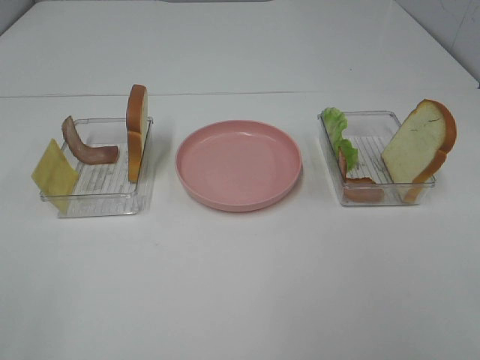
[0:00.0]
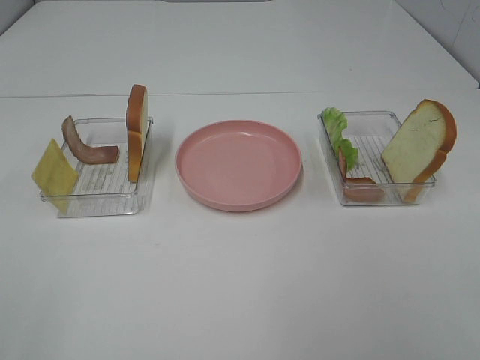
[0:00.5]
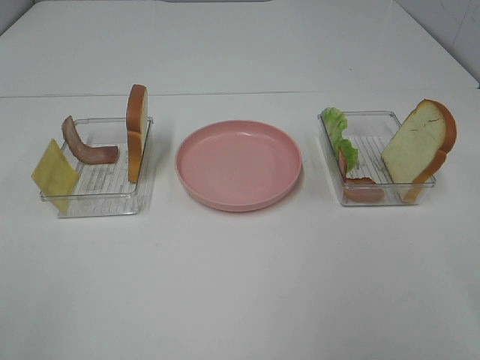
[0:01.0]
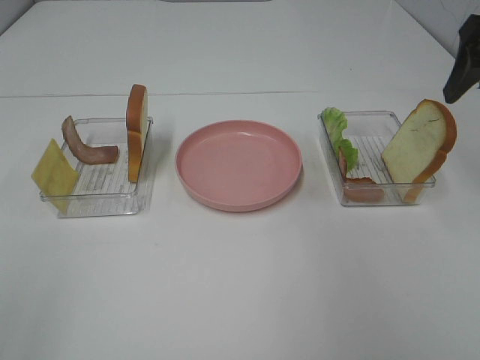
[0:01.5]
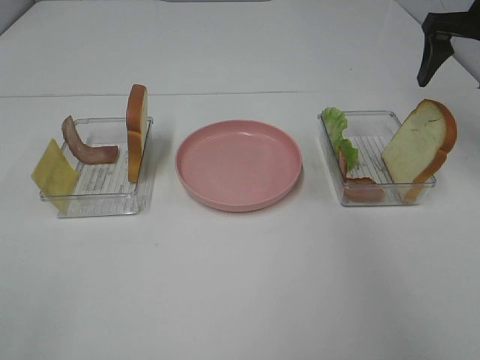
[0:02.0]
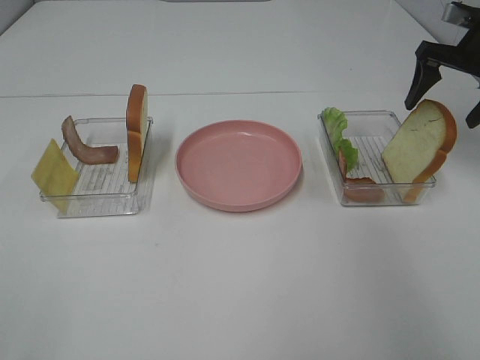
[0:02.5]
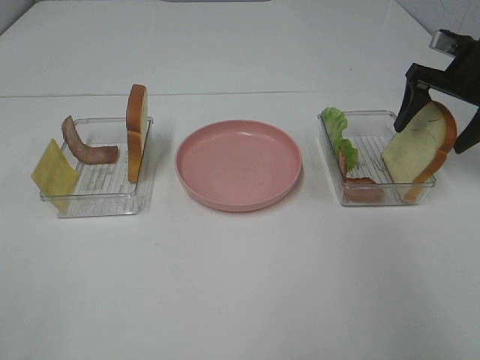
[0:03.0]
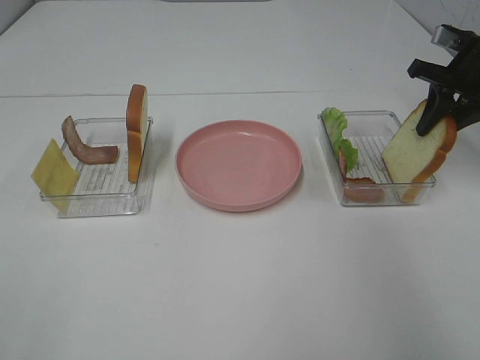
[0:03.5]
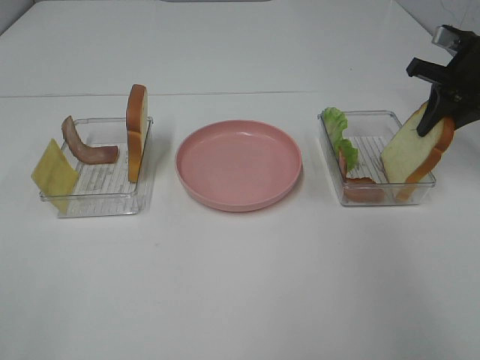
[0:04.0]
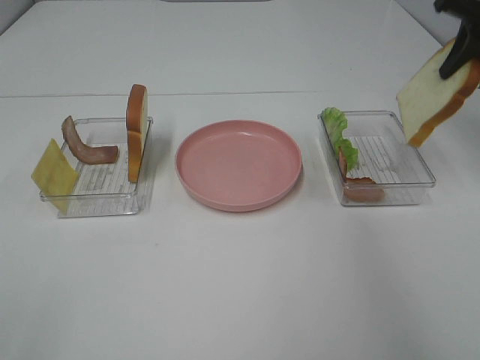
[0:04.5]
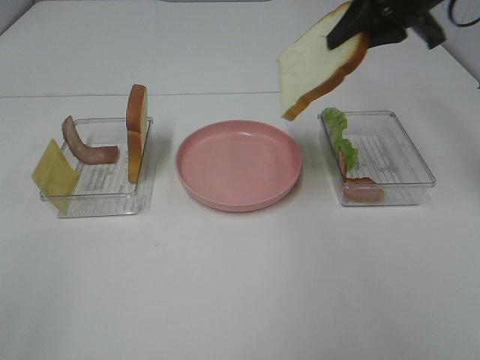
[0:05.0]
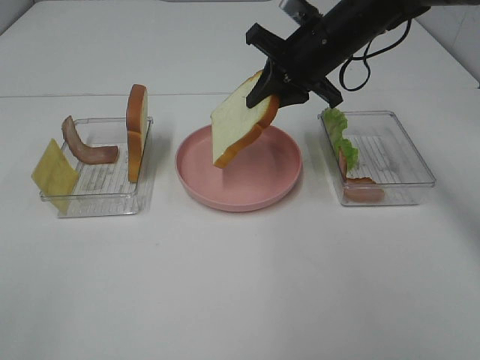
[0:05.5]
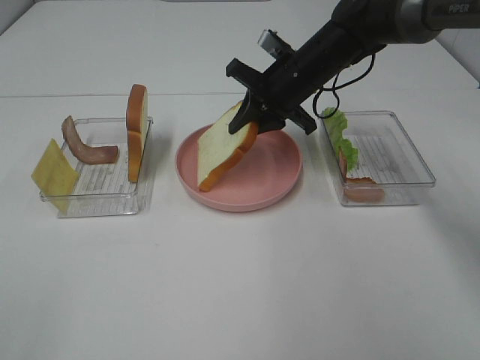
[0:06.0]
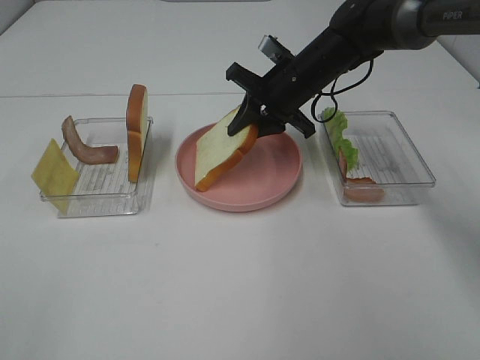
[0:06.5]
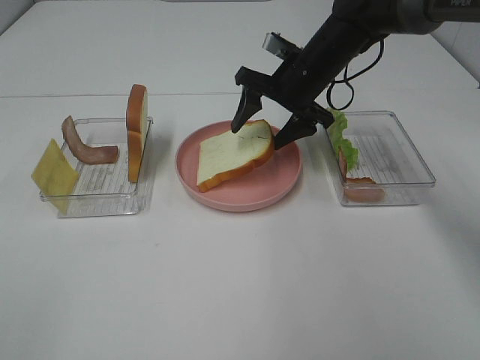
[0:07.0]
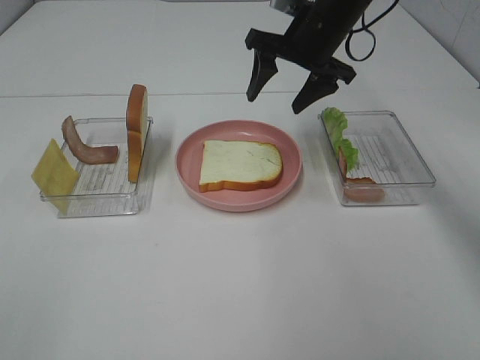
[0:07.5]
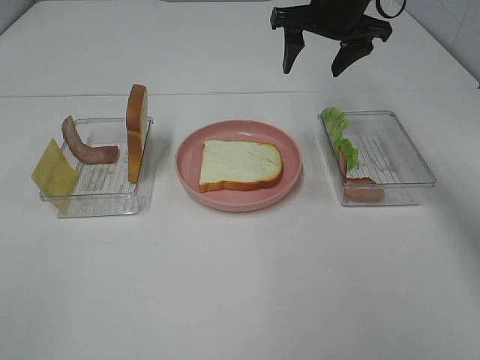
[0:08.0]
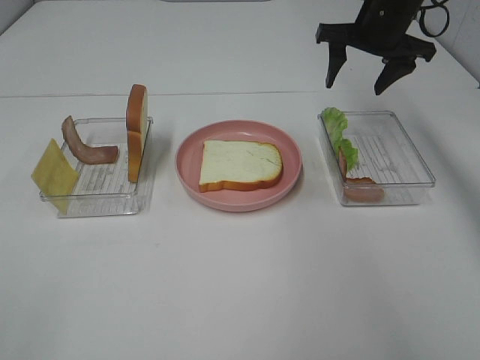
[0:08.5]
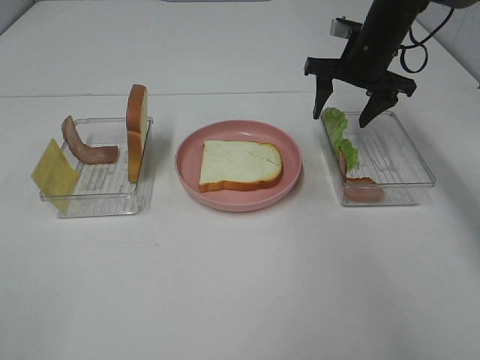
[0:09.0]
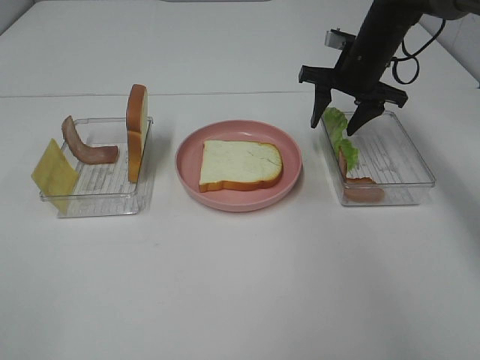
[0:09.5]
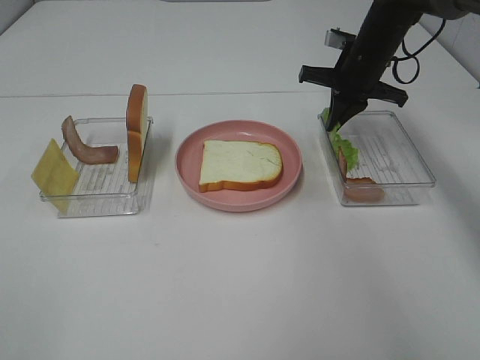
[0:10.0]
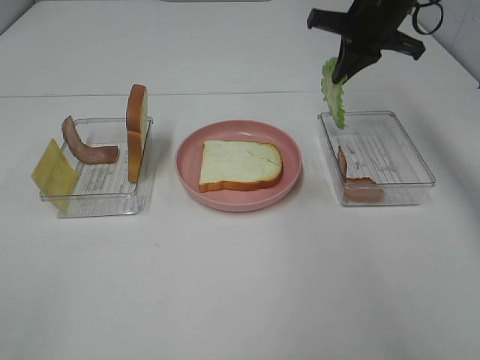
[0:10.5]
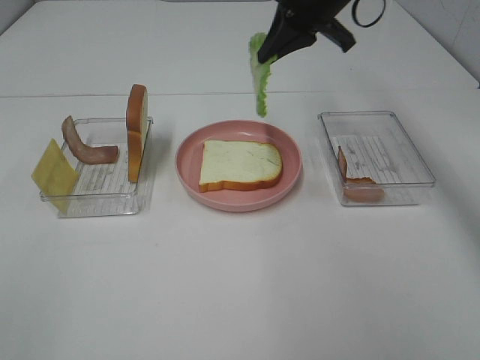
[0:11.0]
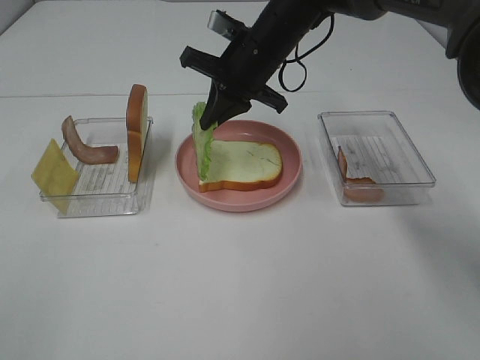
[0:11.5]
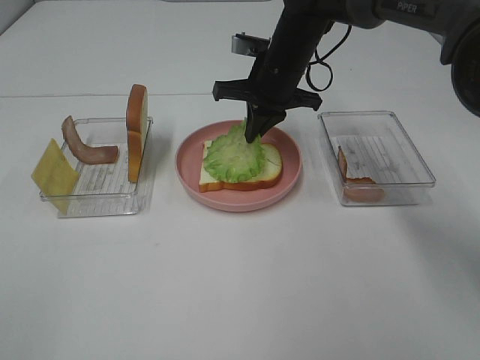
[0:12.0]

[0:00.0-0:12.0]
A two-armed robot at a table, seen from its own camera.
Task of the whole recording: Make sandwiches.
Step, 0:00.0 to 0:03.5: Right hand:grab the bread slice.
Step, 0:04.0 to 0:07.0: Right hand:place the bread slice on the plate.
Step, 0:07.5 to 0:09.5: Right hand:grab the lettuce slice.
0:00.0 to 0:02.0: The right gripper travels forward by about 40 cm.
0:02.0 to 0:04.0: The right gripper shifts some 10 cm downward, and closes.
0:04.0 to 0:06.0: The right gripper shifts roughly 25 cm to the left.
0:06.0 to 0:08.0: The right gripper moves upward, some 10 cm, and opens up.
0:08.0 to 0:10.0: The right gripper moves downward, approximately 10 cm, and closes.
0:10.0 to 0:12.0: The right gripper shifts about 15 cm to the left.

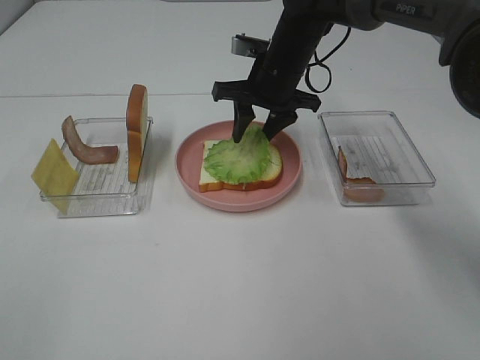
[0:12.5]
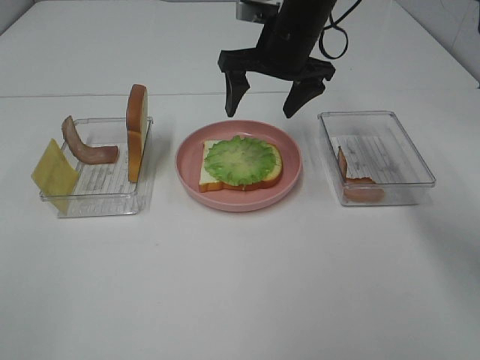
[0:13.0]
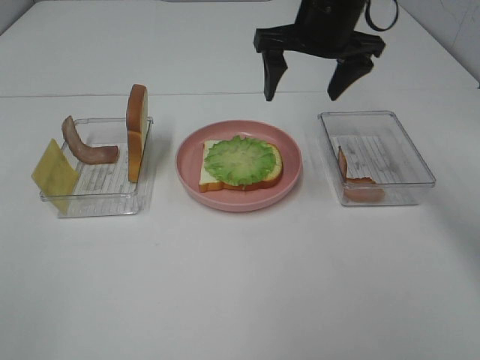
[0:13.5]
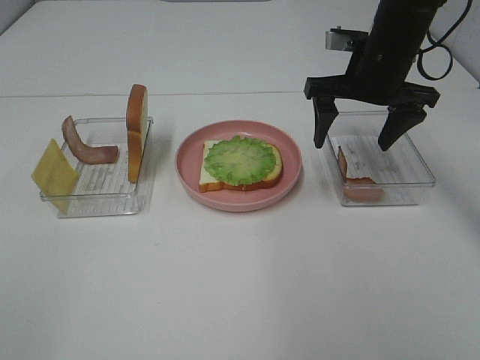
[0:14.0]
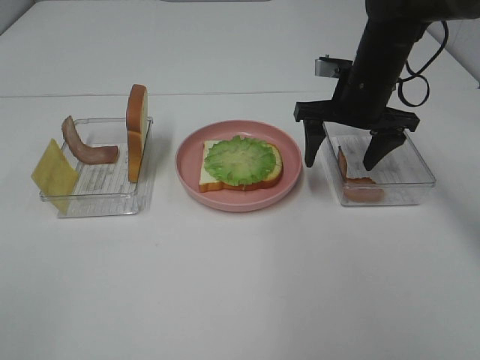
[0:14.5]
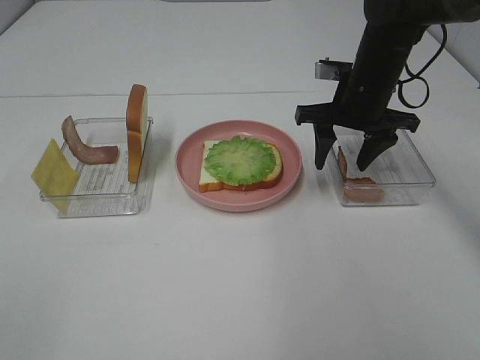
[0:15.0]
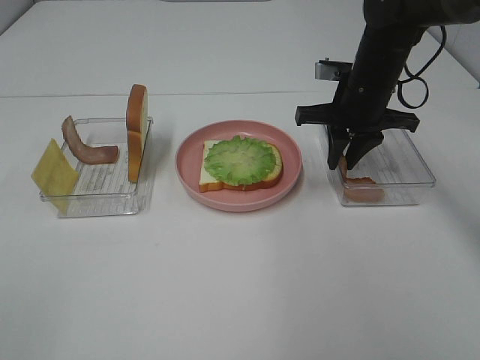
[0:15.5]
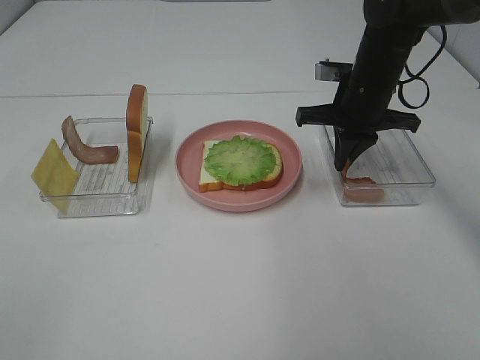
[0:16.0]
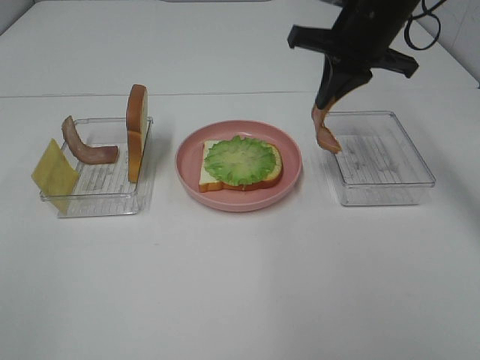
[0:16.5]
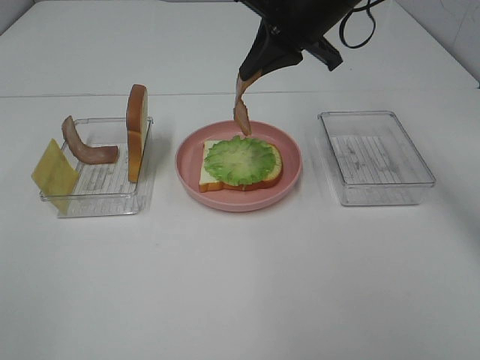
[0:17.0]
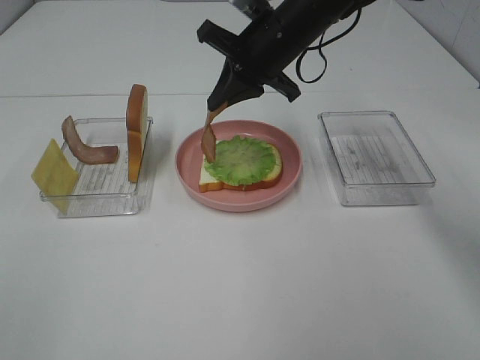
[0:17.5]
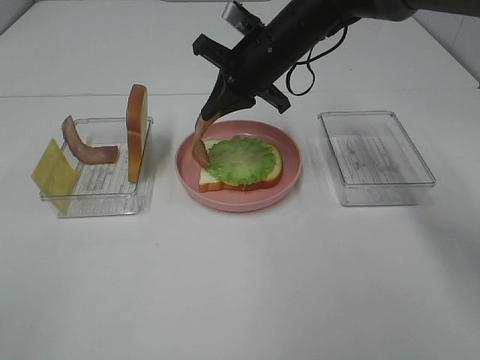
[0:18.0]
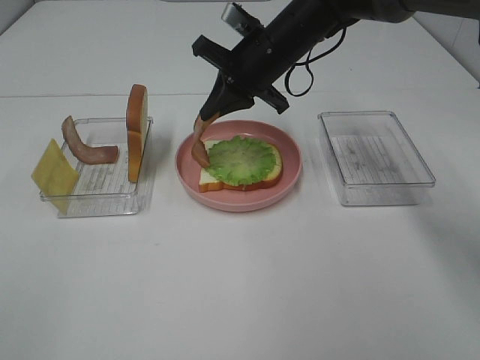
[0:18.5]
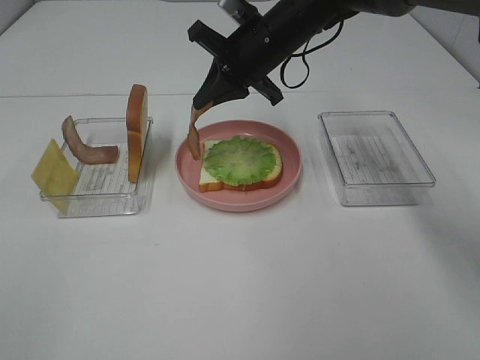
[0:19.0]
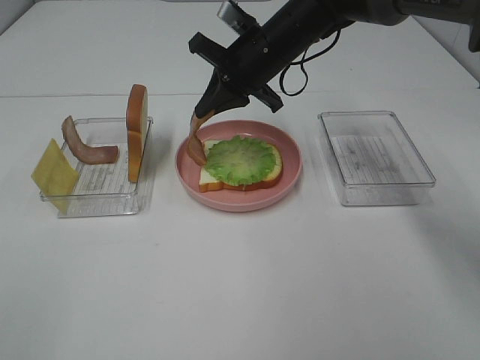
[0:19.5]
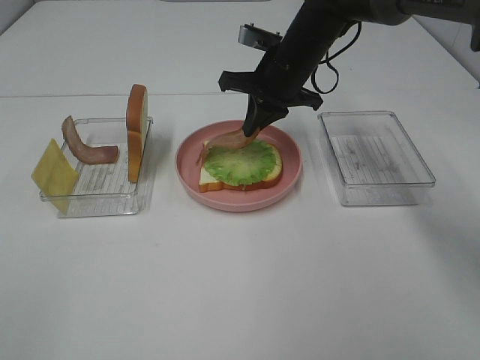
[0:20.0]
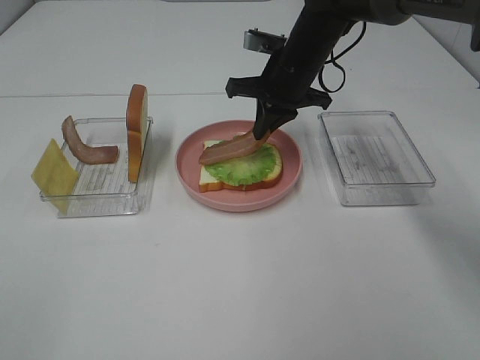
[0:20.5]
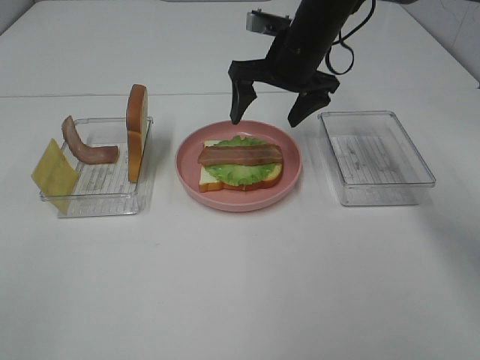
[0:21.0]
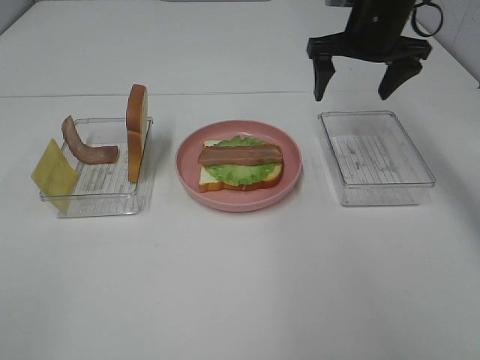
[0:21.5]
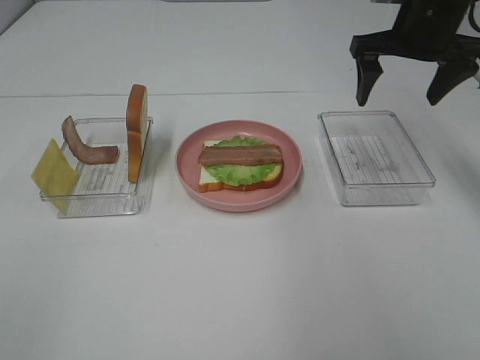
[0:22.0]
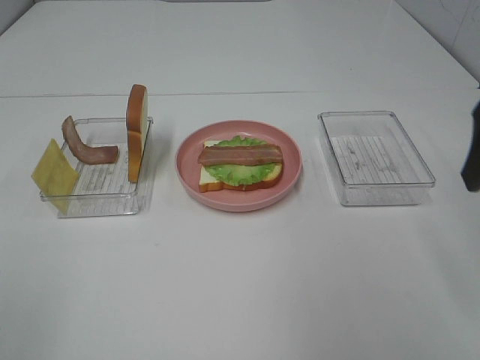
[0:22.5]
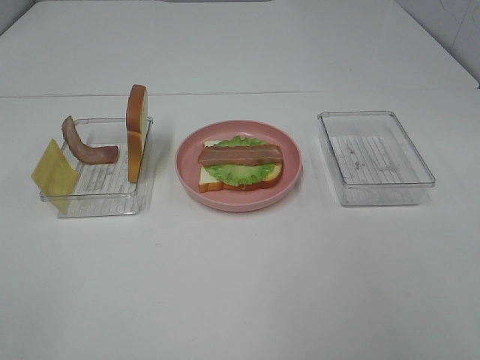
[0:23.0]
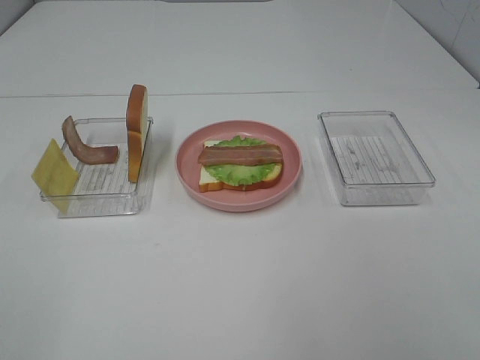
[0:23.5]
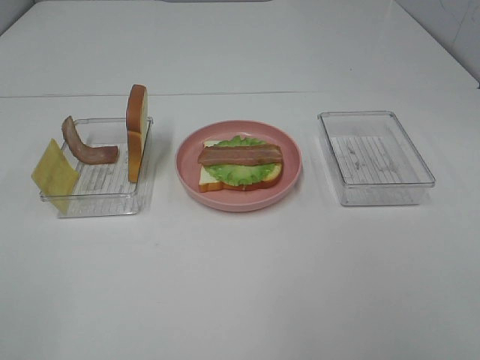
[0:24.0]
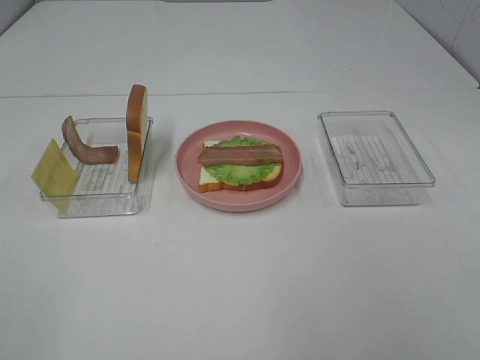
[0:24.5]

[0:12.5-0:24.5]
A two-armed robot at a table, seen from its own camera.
Task of the whole recording: Make sandwiches.
Step, 0:13.5 to 0:16.0: Right hand:grab the bacon.
Step, 0:16.5 to 0:20.5: Right hand:place bacon on lettuce slice.
0:12.5 to 0:14.5: The right gripper moves to the right, about 10 cm.
0:14.5 to 0:16.5: The right gripper goes about 10 cm upward, and closes its fingers.
0:16.5 to 0:18.5: The right gripper travels to the left and downward by about 10 cm.
0:20.5 to 0:22.5: The right gripper is displaced backward, to the right and upward by approximately 35 cm, and opens its fingers.
0:22.5 to 0:24.5: The right gripper heads backward, covering approximately 20 cm.

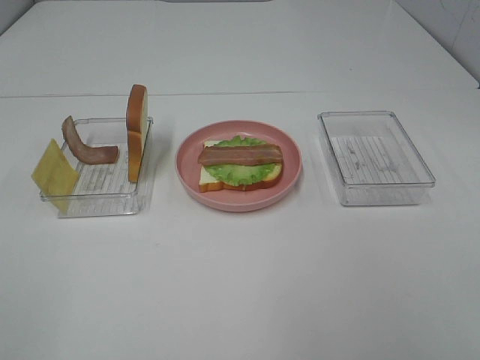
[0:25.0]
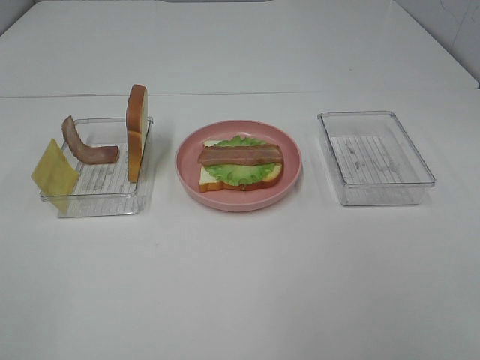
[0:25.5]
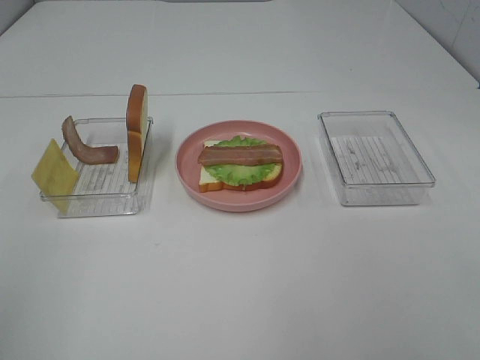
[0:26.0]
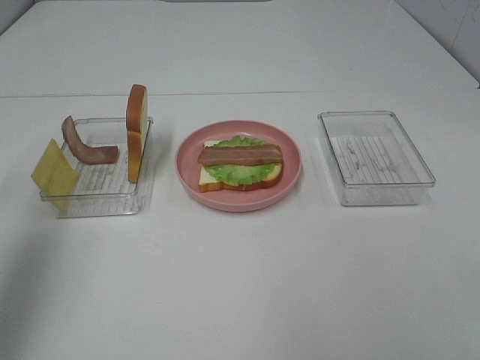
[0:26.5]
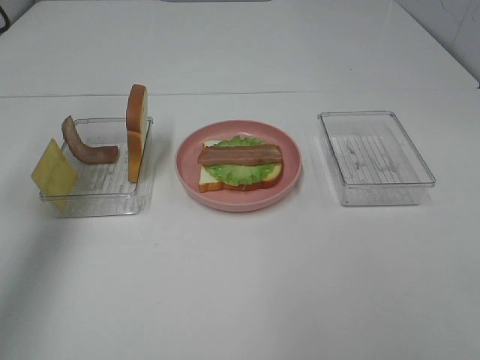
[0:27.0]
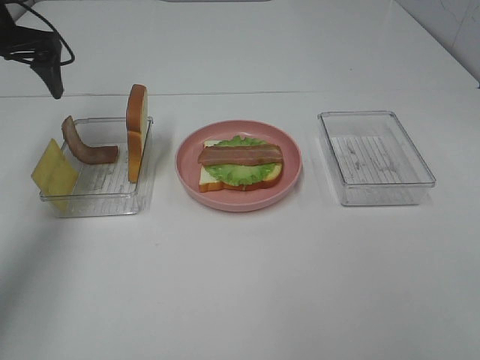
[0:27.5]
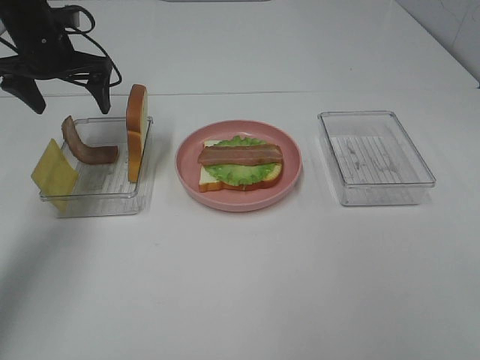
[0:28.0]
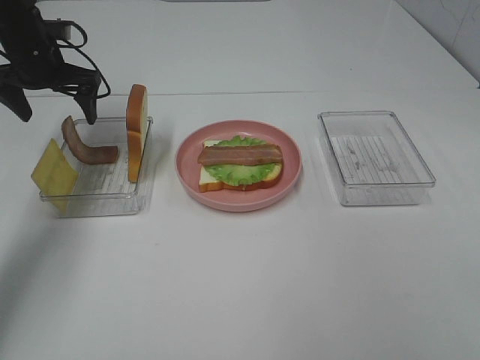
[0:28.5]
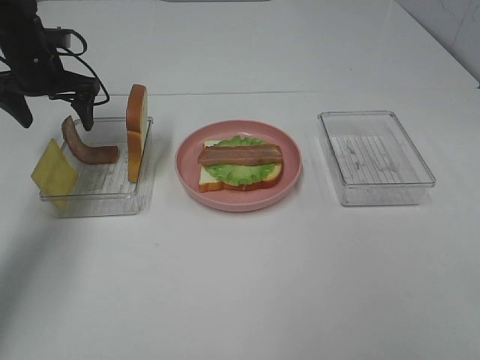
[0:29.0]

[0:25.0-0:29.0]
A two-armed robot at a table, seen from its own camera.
Task of the whole recording: Make sandwiches.
0:25.0 to 0:27.0: The left gripper shifts some 35 cm forward.
0:27.0 to 0:29.0: The left gripper travels downward and forward by roughly 20 cm.
